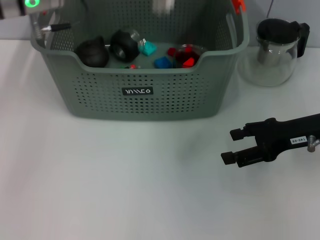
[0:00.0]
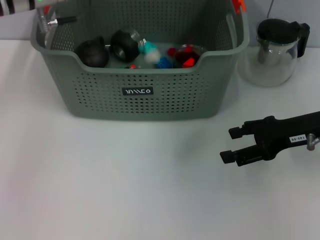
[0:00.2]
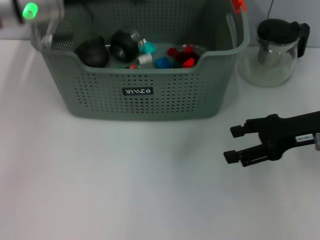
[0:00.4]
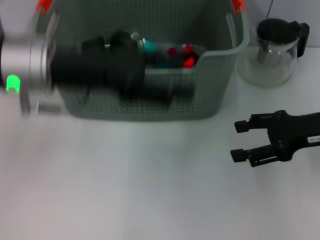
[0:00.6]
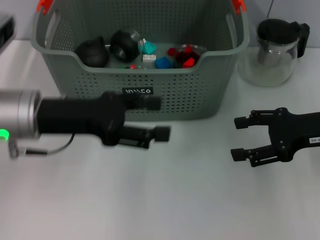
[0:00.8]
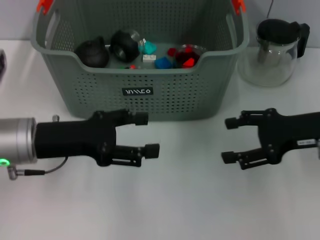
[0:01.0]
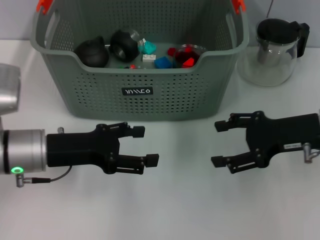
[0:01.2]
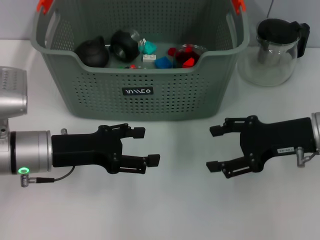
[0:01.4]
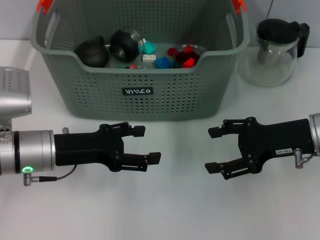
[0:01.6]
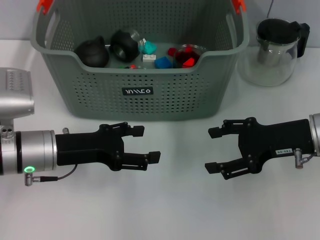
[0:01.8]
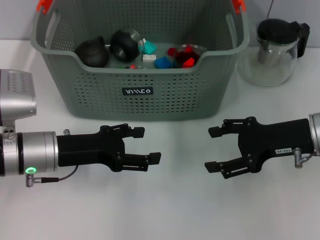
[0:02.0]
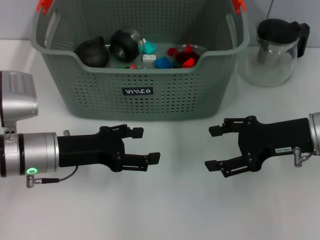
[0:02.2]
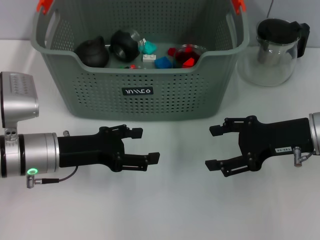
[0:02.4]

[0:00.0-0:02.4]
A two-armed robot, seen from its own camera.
Task of the whole recording: pick up the teacup on the table and place it into the storage bin, pick up the block on the table and place it into the storage bin.
0:00.0 to 0:01.2: The left gripper heads downward and backward, covering roughly 20 cm, and opens up.
0:01.2 to 0:02.4: The grippers move only a little.
